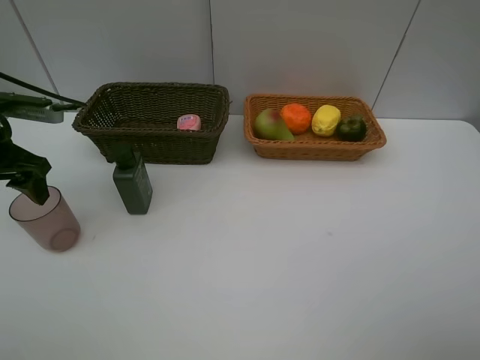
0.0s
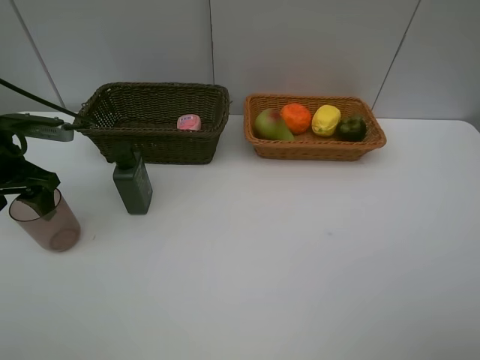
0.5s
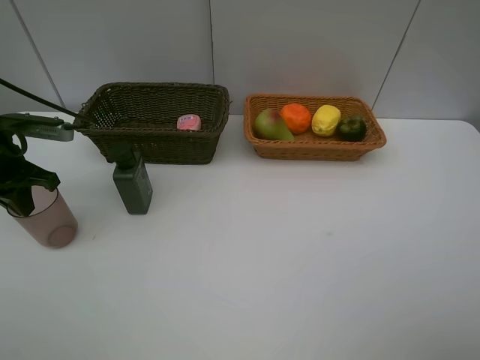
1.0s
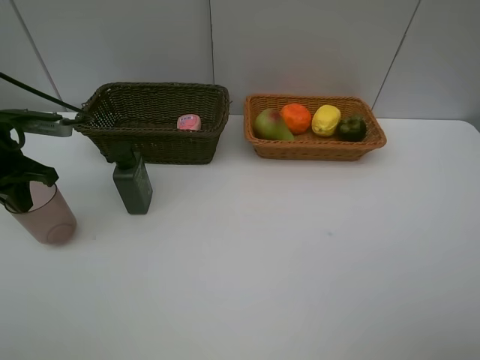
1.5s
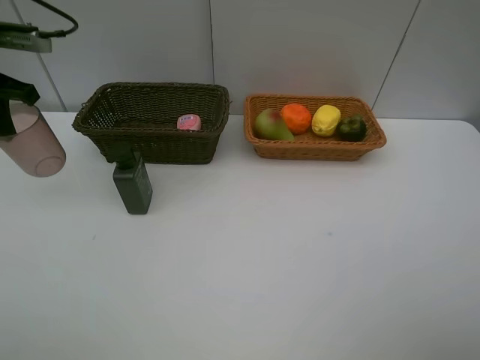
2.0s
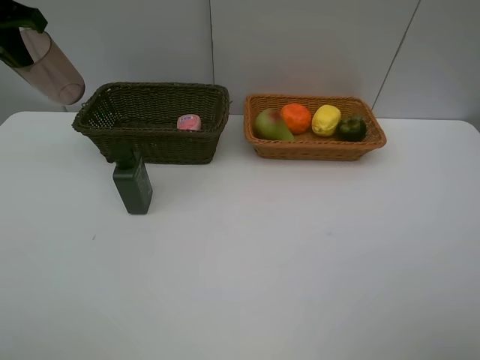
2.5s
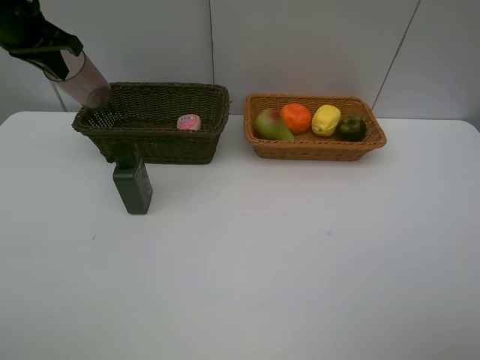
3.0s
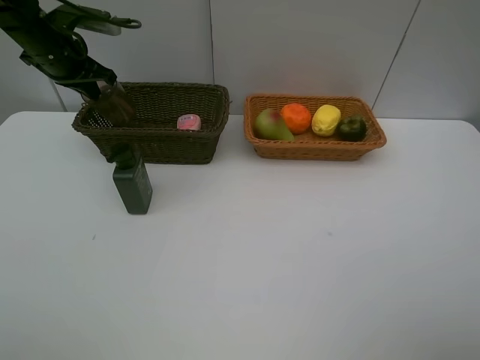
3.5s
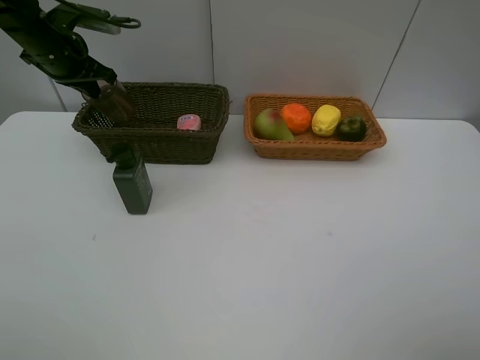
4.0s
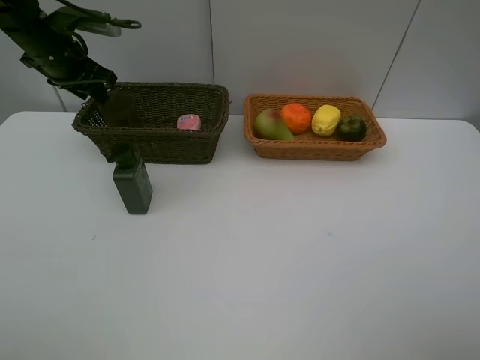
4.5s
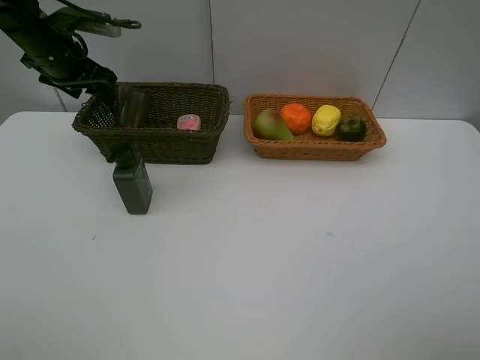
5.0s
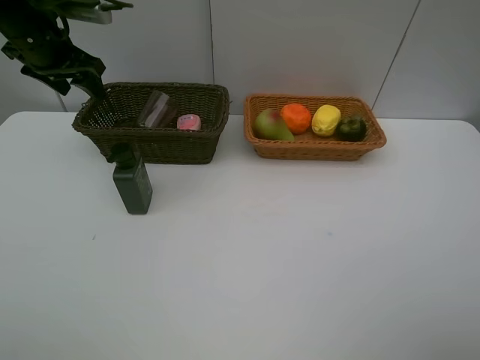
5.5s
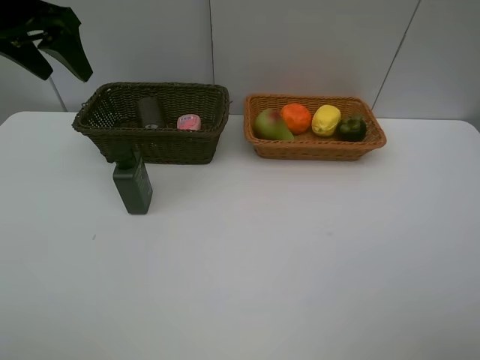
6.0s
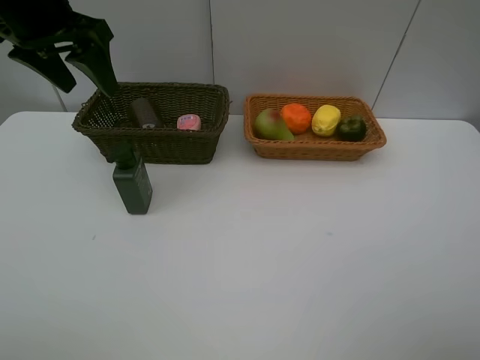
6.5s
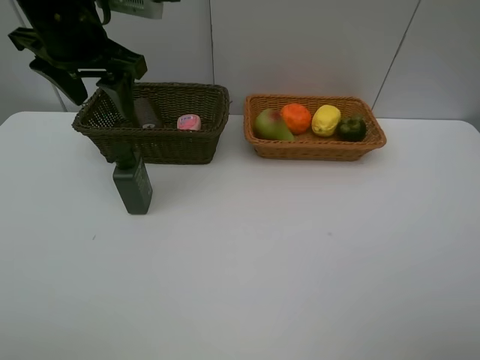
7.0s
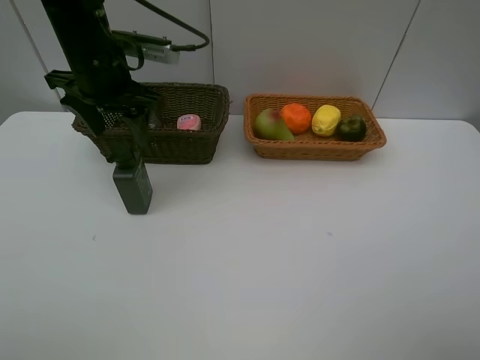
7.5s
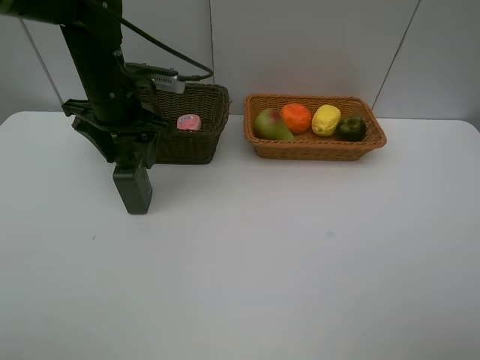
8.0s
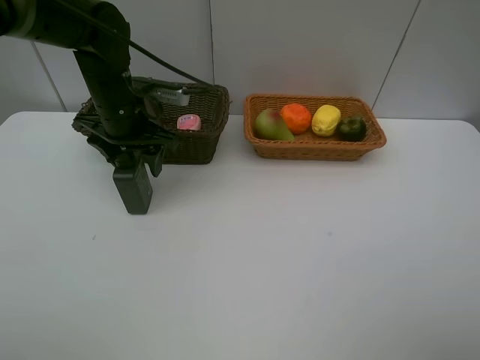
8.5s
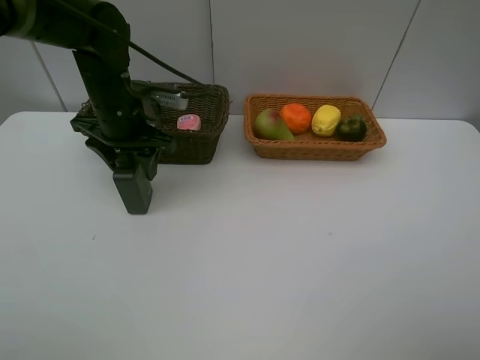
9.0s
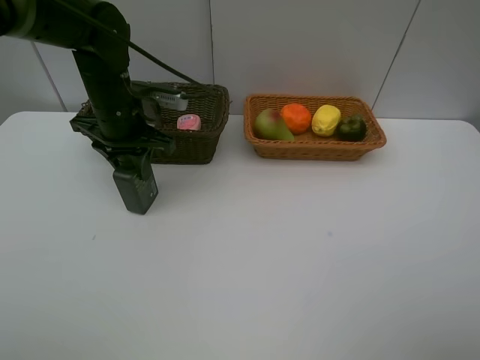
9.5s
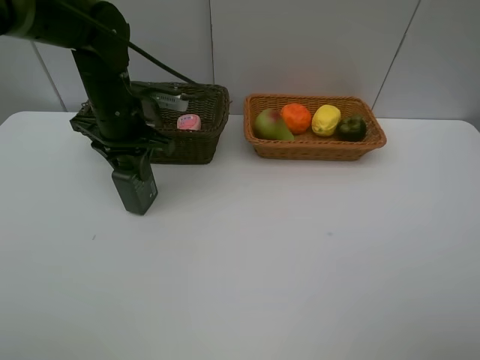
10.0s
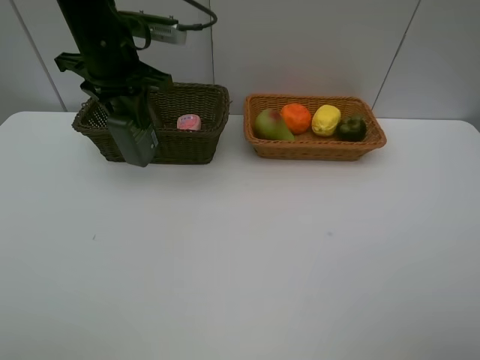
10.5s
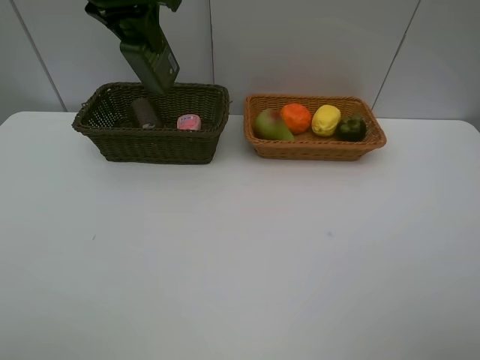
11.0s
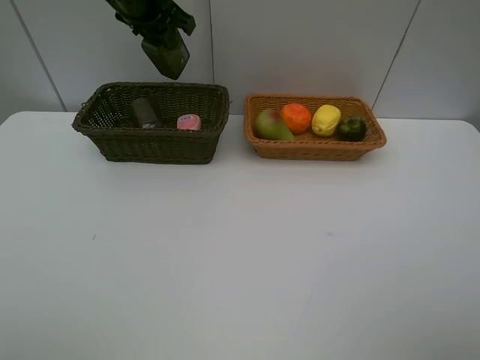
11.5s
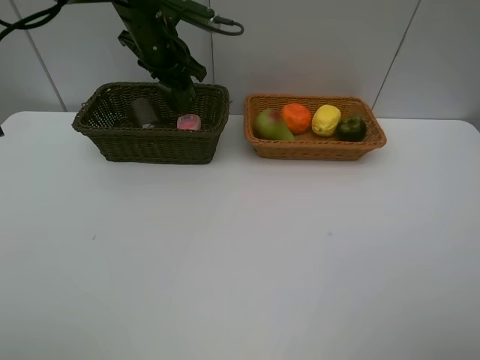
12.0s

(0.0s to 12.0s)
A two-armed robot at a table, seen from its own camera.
Task of the whole recording: Place multiple objects separately in different baskets.
Step, 2.0s - 5.0s: Place the red cup in the dark basket with left gripper.
Step, 5.5s - 10.0s: Pick up the hard facial cleanser with left gripper.
0.0s - 2.0s: The left gripper moves upward and forward, approximately 10 cm, and closes up.
2.0s - 4.0s: The left gripper travels forward and downward by about 10 cm.
4.0s - 6.0s: The left gripper moves upward and backward, approximately 15 cm, and opens its fingers.
6.0s - 8.0s: The left gripper travels downward and to the right by about 15 cm.
8.0s - 10.0s: The left gripper closes up.
10.0s - 12.0s: The left gripper moves forward, some 10 cm, and travels upward and back again, some 15 cm each way.

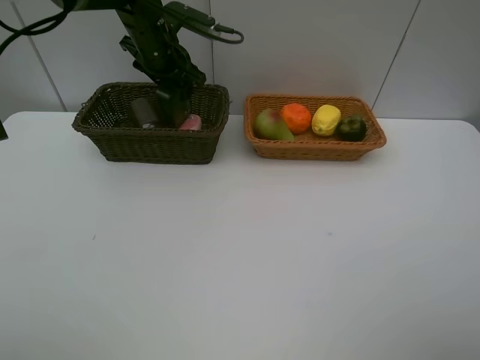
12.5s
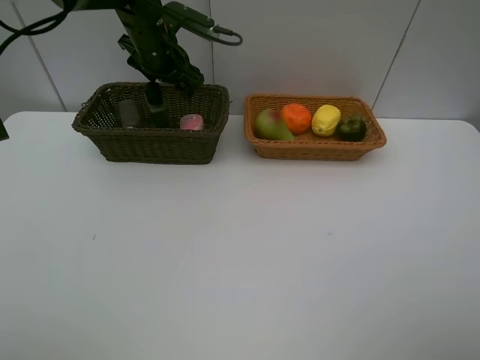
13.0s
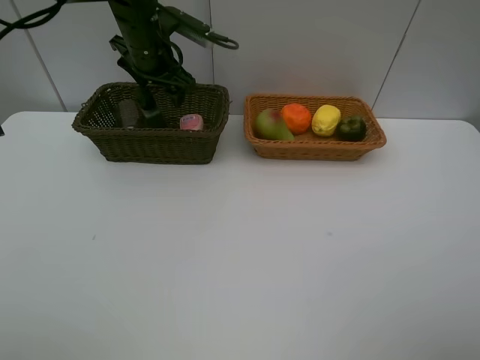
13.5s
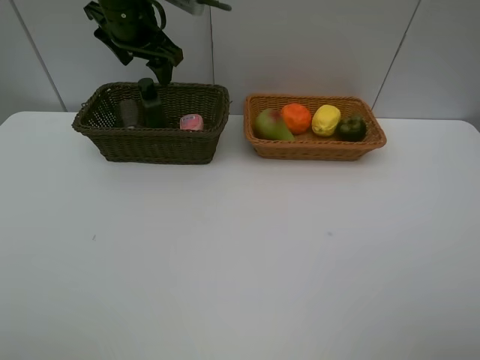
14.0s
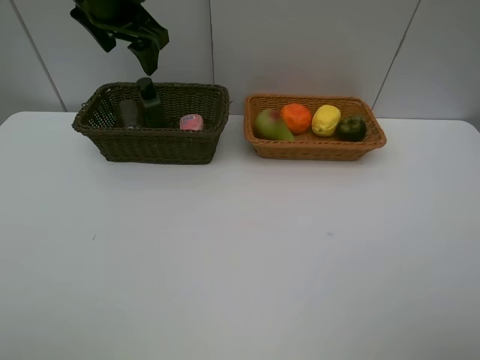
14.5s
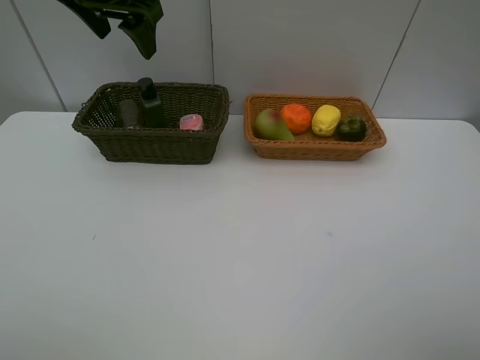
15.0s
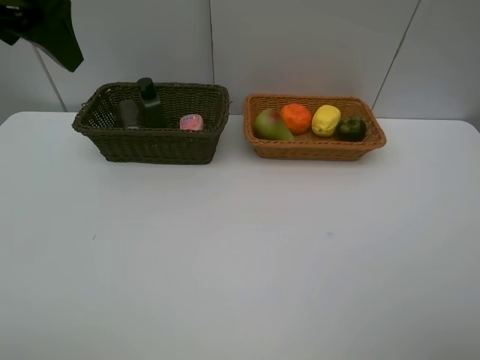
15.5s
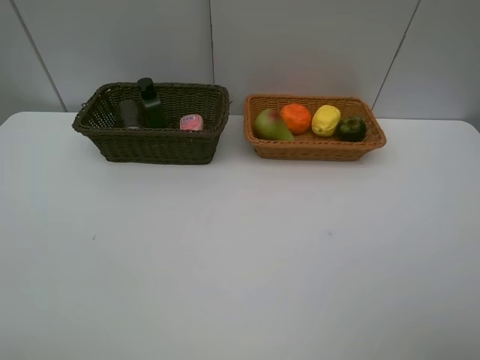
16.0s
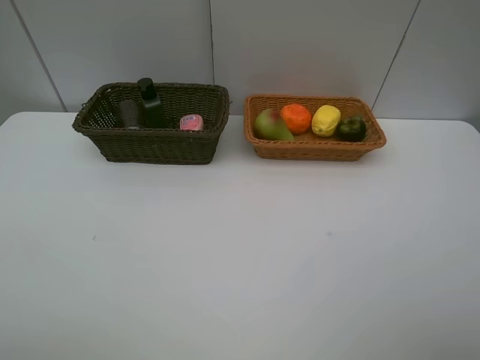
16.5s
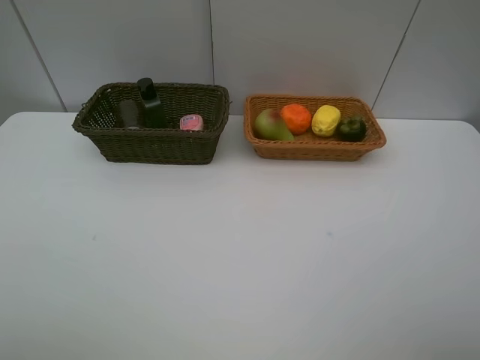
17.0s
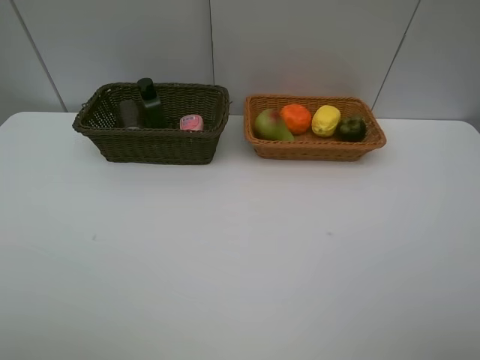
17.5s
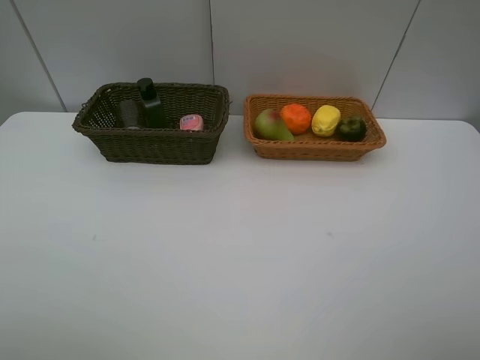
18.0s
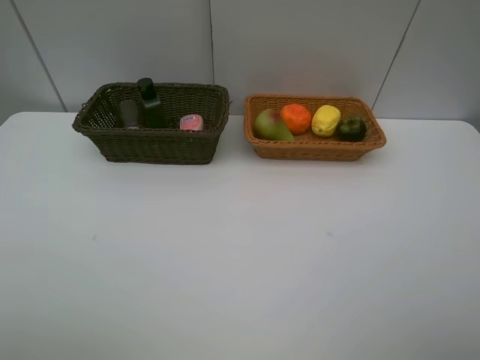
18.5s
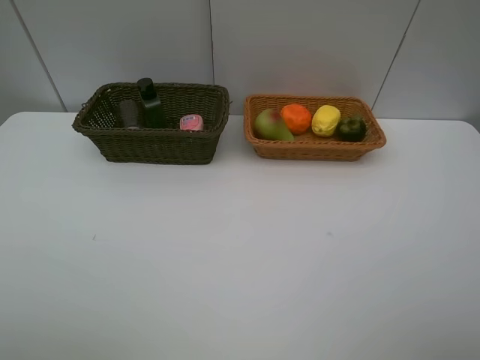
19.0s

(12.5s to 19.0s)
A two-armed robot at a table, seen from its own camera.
Task of the whole recording: Place multiple objects separately in different baskets.
12.5s - 14.5s: The left gripper goes roughly 10 cm upward and backward.
14.5s - 17.0s: The left gripper travels backward by about 40 cm.

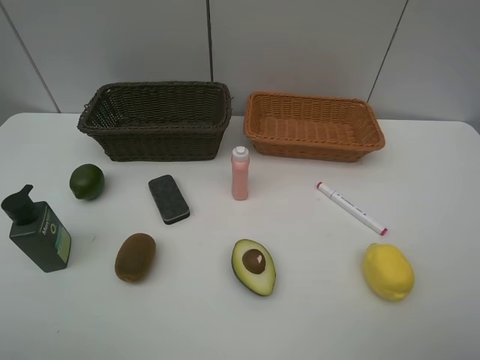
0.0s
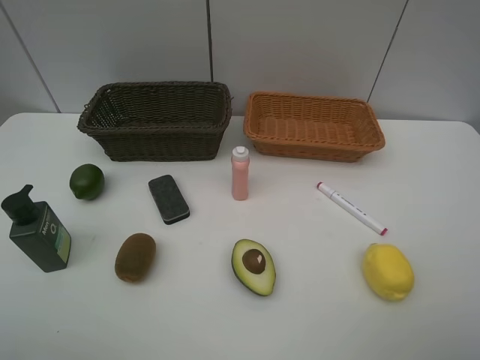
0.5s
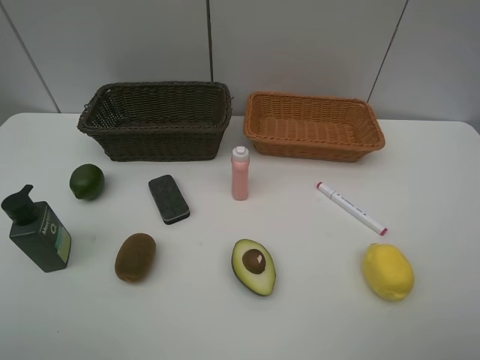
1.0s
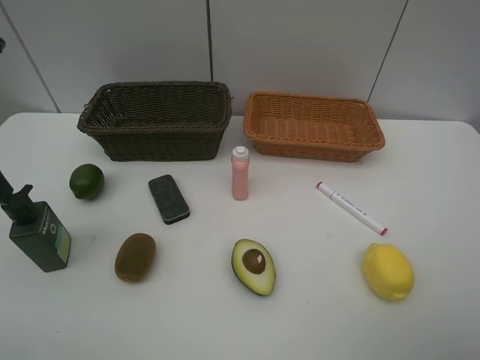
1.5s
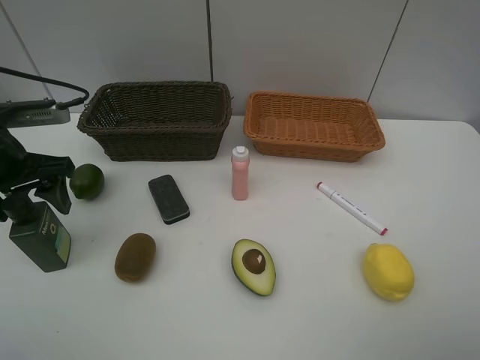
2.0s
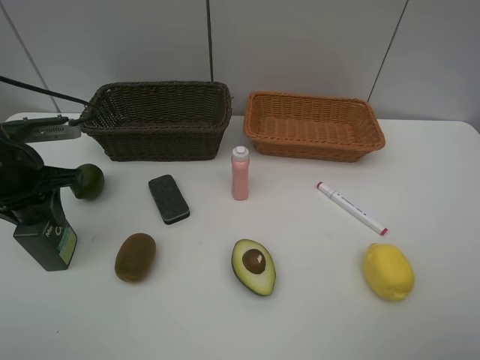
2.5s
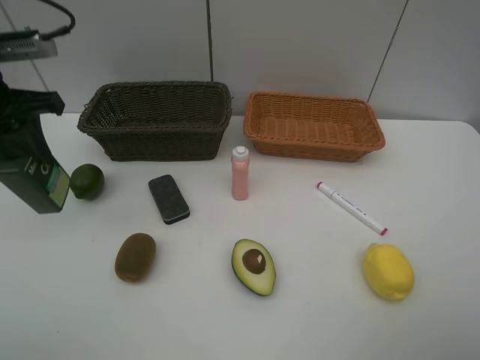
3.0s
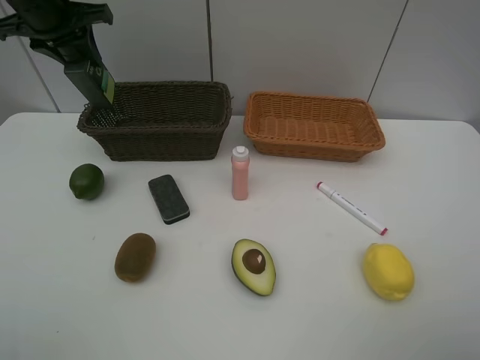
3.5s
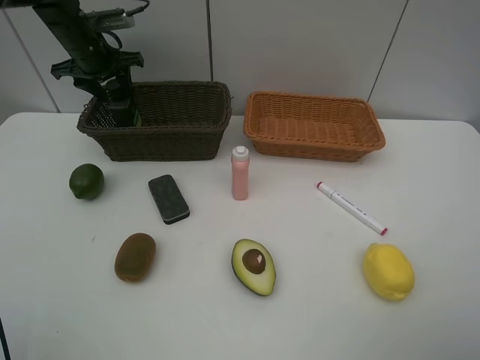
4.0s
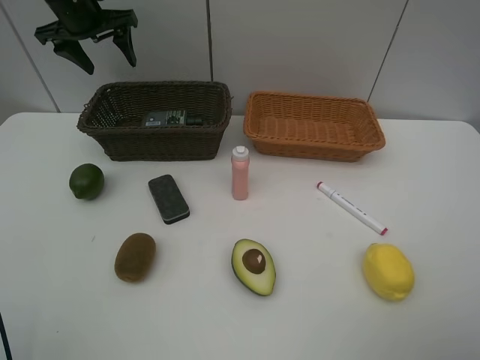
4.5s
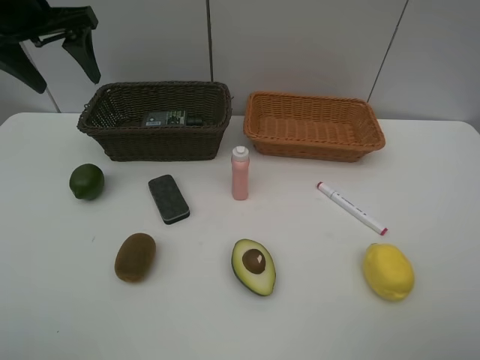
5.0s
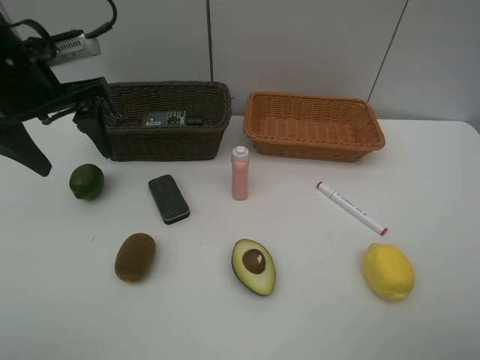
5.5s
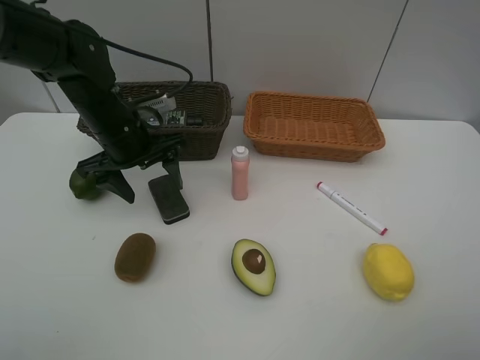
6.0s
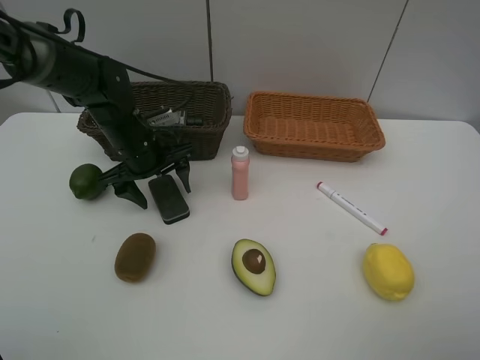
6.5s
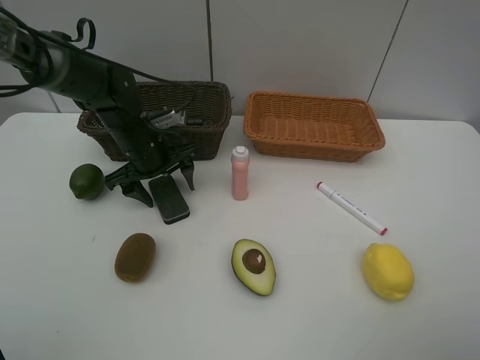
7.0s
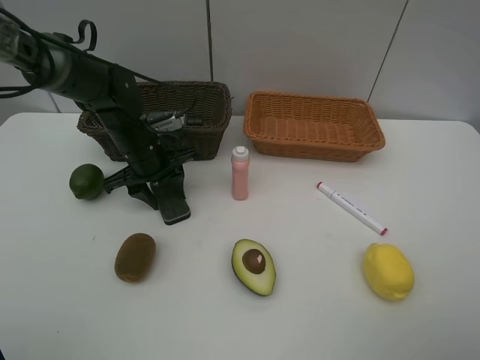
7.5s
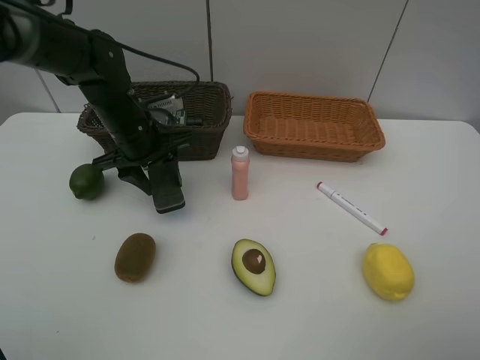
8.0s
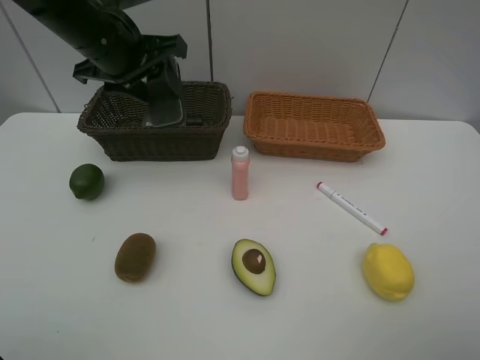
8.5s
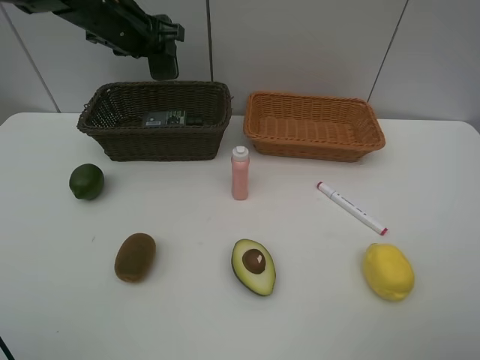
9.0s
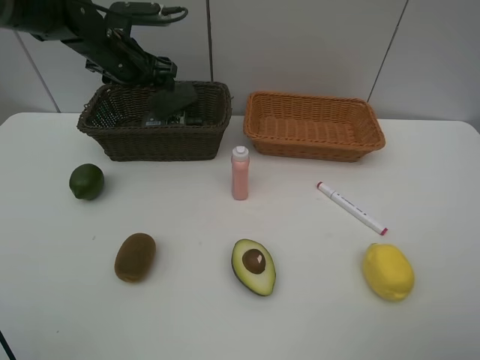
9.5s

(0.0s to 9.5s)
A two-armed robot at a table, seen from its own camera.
Task of the whole recording: Place multiple objects separately in different baskets.
Step, 0.0s - 2.5s: Pick up the hard facial cleanser with left gripper.
Step, 3.0s - 4.0s: Place the hard facial cleanser in the dark basket with left gripper.
Step, 4.5s - 8.0s: Pick up blackboard eraser with left gripper.
0.0s - 2.0s: The left gripper heads forward, covering roughly 25 cm.
2.0s - 4.0s: The left gripper goes about 25 cm forward, and closes, then opens again.
4.0s - 5.5s: The left gripper goes approximately 20 cm backward.
5.5s - 7.5s: The left gripper shifts roughly 20 cm downward, to the right and forward, and closes up.
7.5s - 9.5s: The left gripper travels upward and forward by some 15 cm, and opens its fingers.
